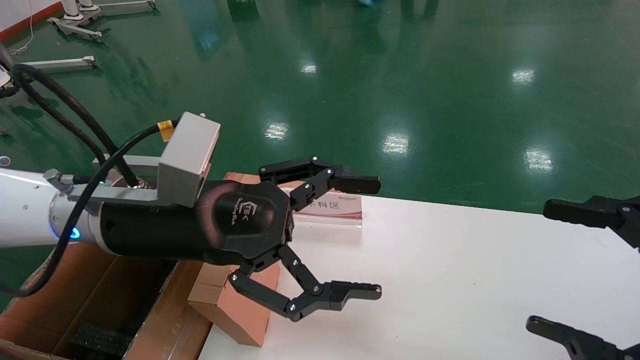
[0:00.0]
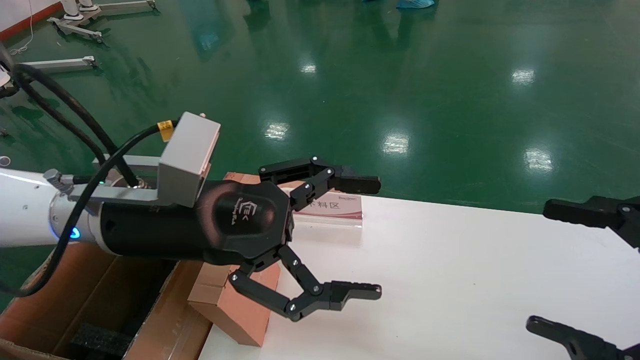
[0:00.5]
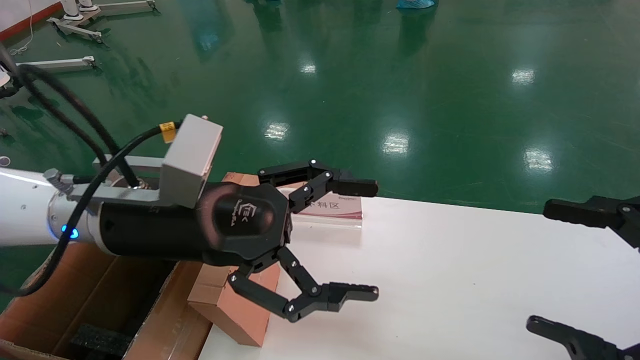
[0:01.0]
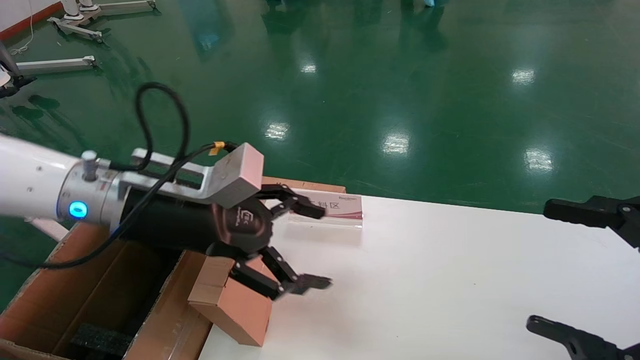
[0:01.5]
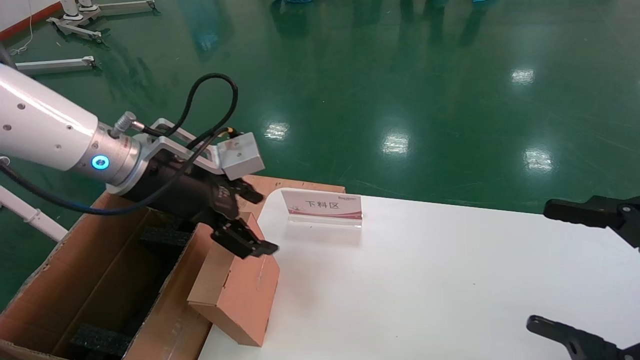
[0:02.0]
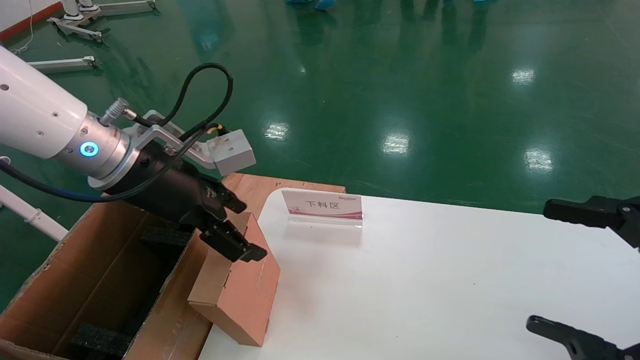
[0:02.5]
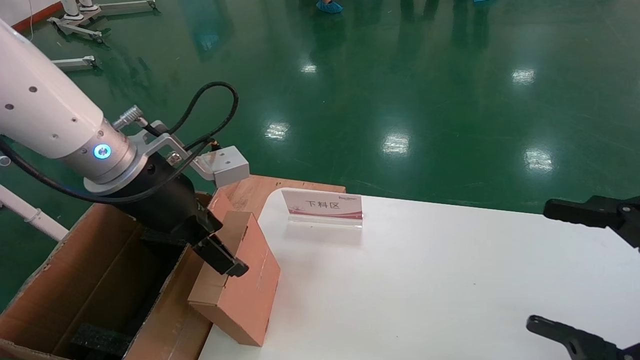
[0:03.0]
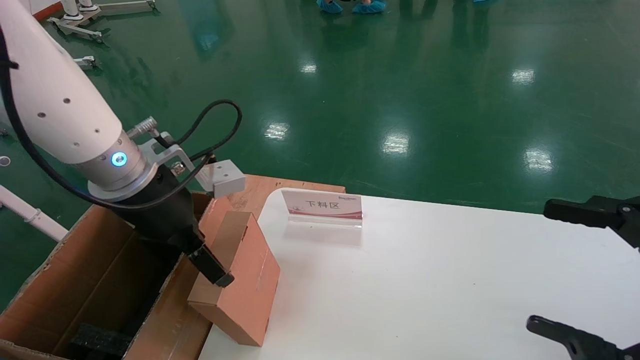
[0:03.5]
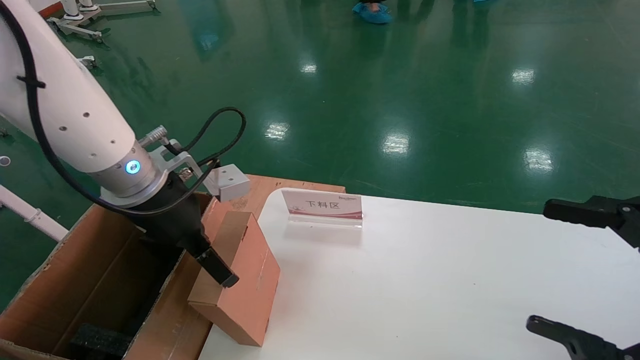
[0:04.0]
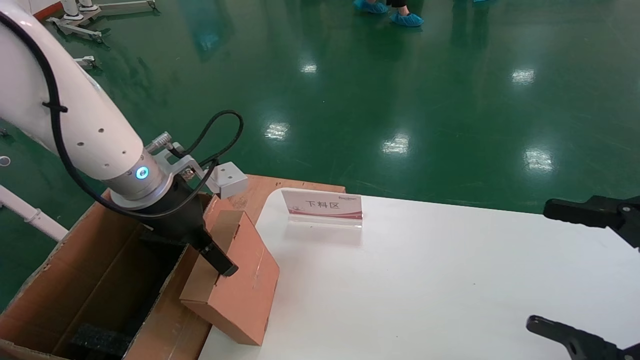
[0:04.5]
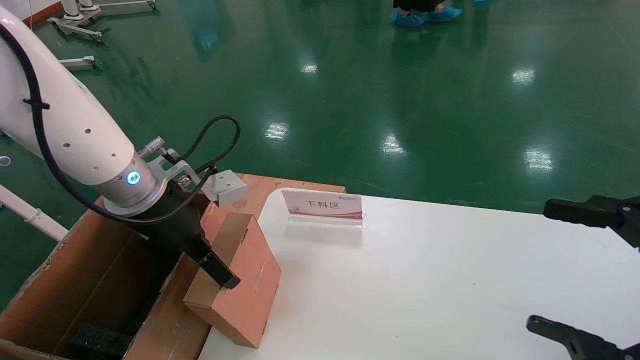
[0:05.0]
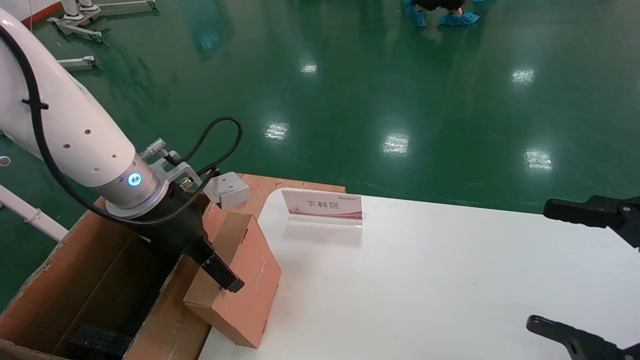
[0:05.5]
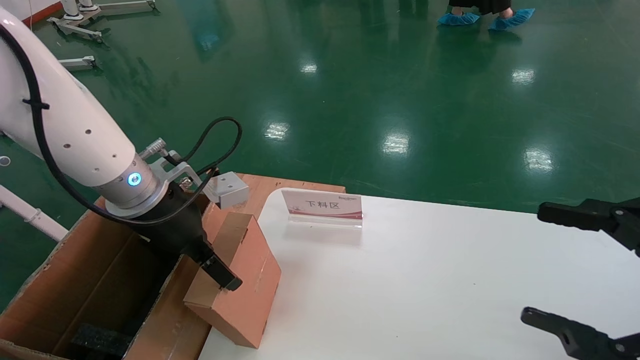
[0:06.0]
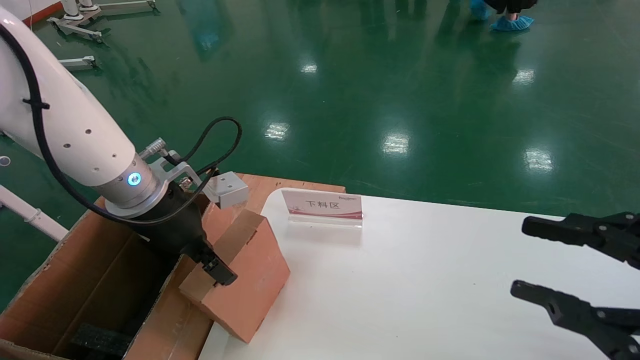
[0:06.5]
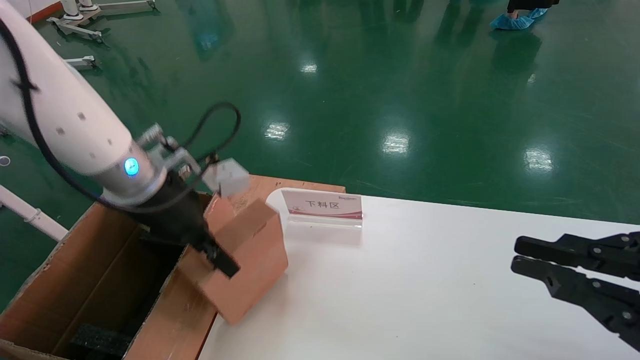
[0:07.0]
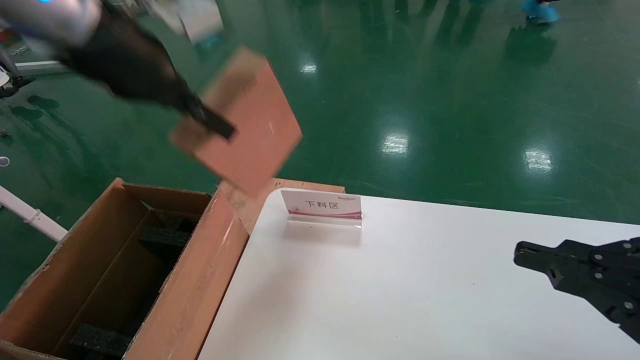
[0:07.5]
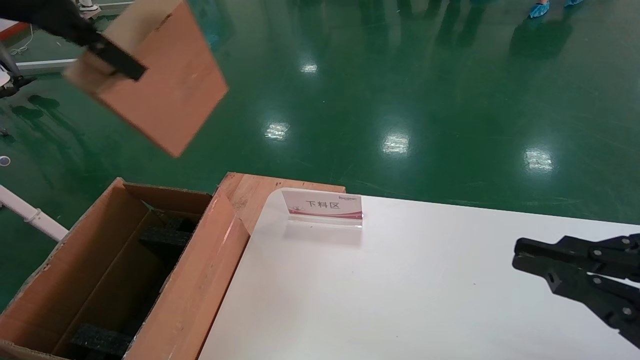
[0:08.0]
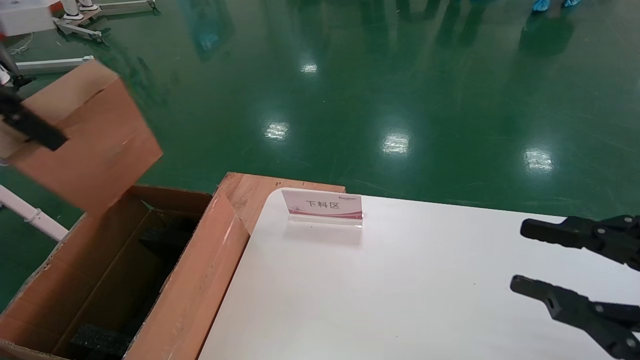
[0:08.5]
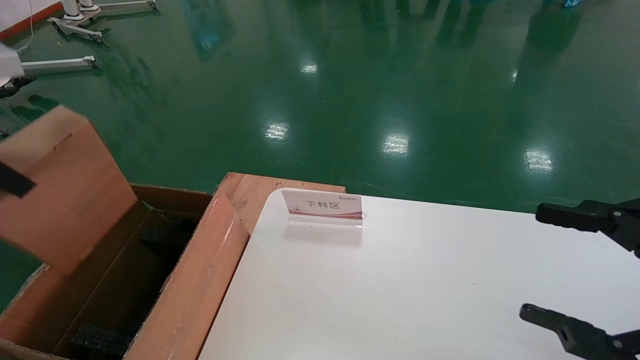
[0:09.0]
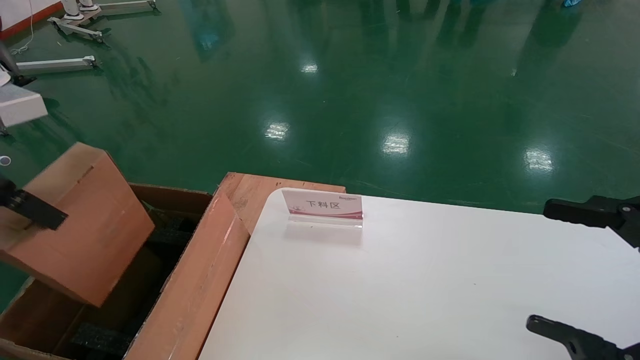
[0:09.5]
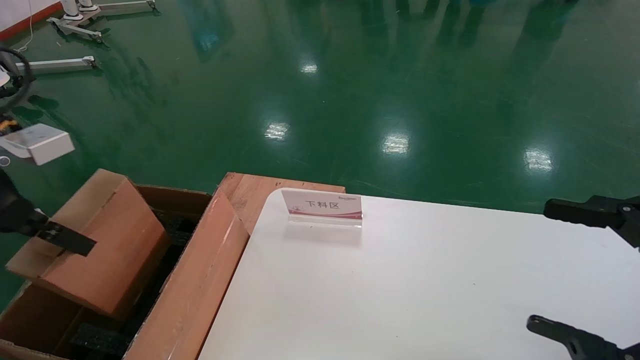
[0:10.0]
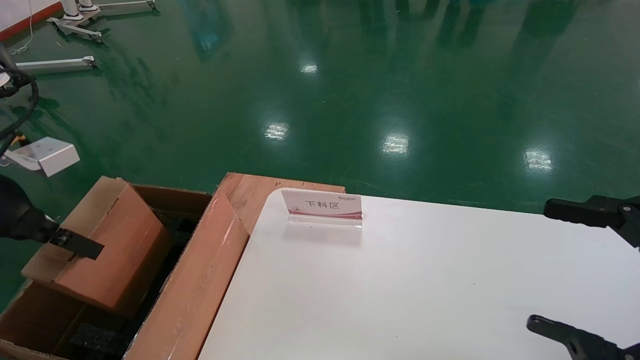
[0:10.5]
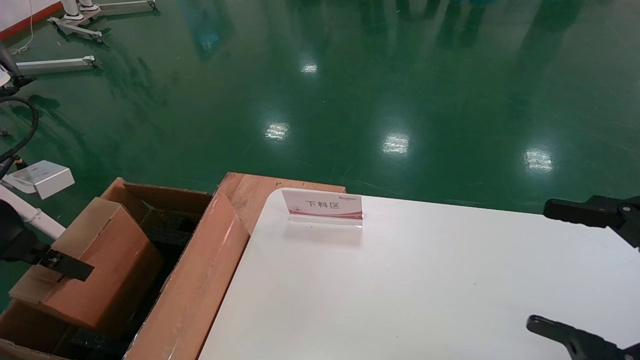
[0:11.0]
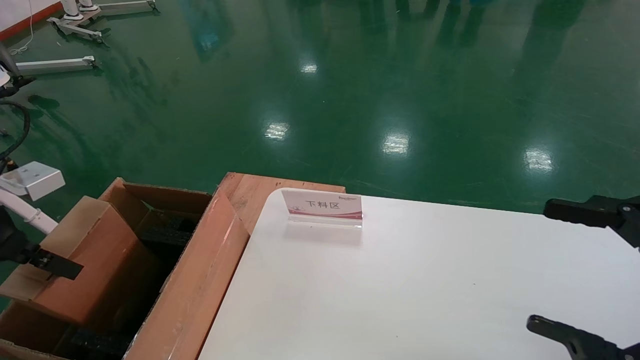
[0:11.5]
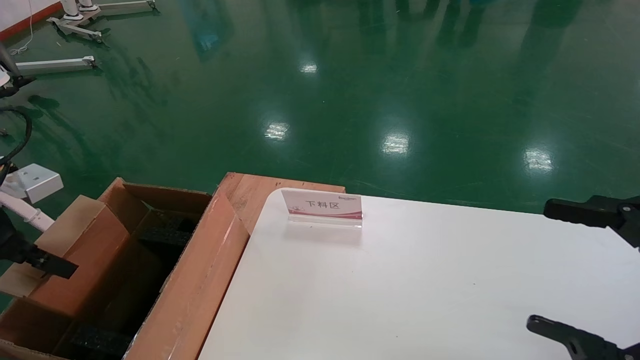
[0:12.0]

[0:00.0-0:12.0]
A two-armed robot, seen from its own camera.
Task of the whole recording: pick up the small cardboard box and load it into the large cardboard box.
Step, 0:01.0 to 0:06.5: Pick up the mouse and power cord box.
0:00.0 to 0:02.0: The left gripper heads forward, covering roughly 5 cm.
0:04.0 to 0:06.0: The grippers move only a little.
0:06.0 to 0:08.0: The left gripper moves upward, approximately 25 cm, and closes up. The right gripper closes its fingers.
0:08.0 to 0:10.0: The right gripper opens; the left gripper moves downward and to the left, roughly 20 cm.
0:10.0 to 0:12.0: The left gripper travels downward and to the left by some 10 cm.

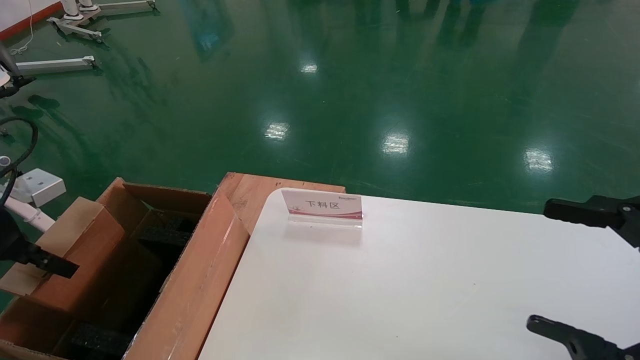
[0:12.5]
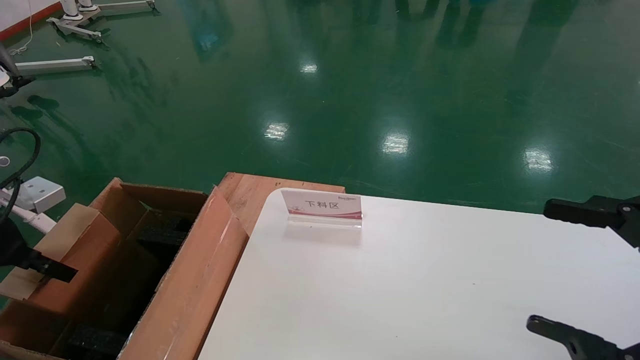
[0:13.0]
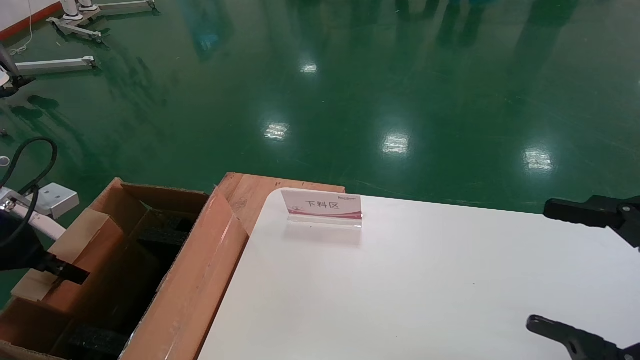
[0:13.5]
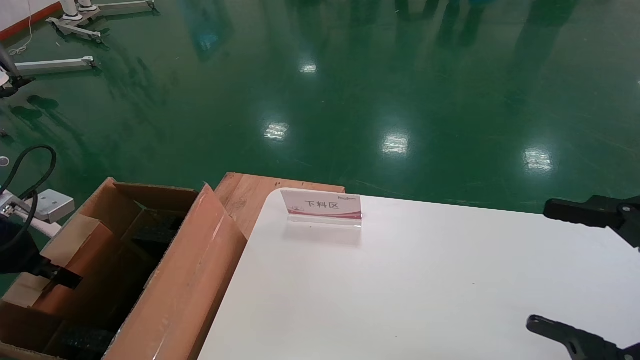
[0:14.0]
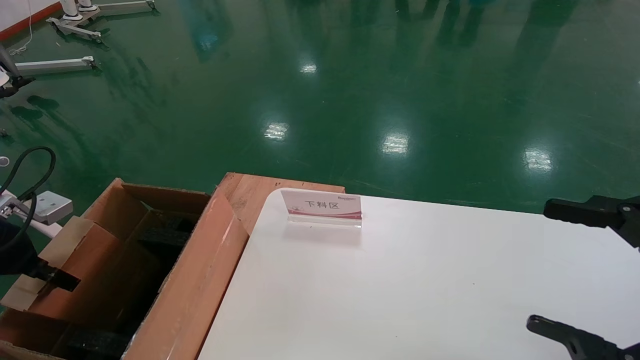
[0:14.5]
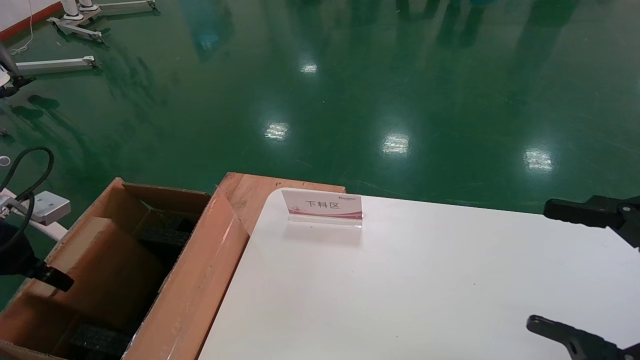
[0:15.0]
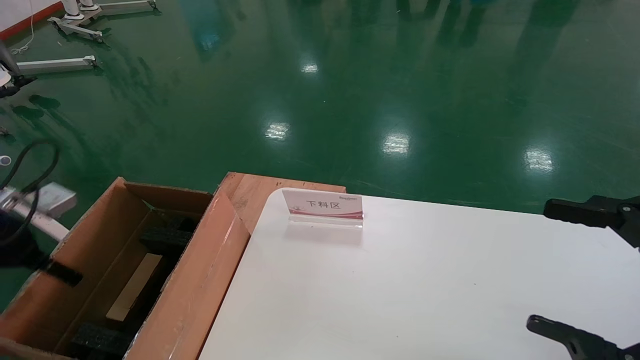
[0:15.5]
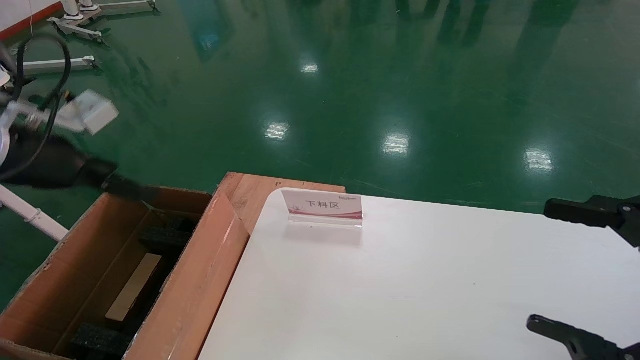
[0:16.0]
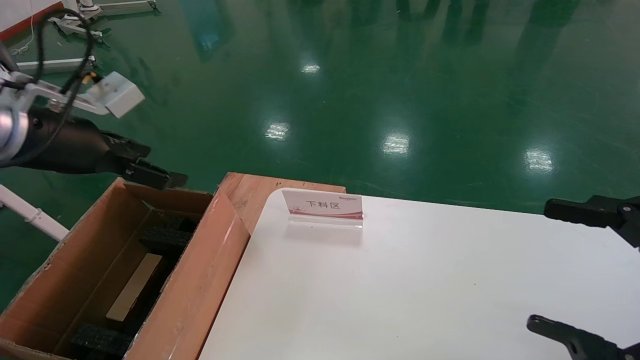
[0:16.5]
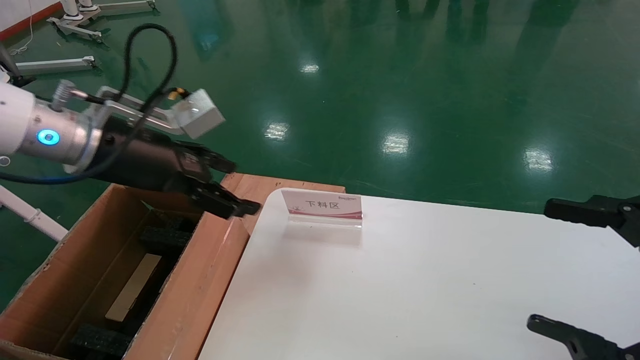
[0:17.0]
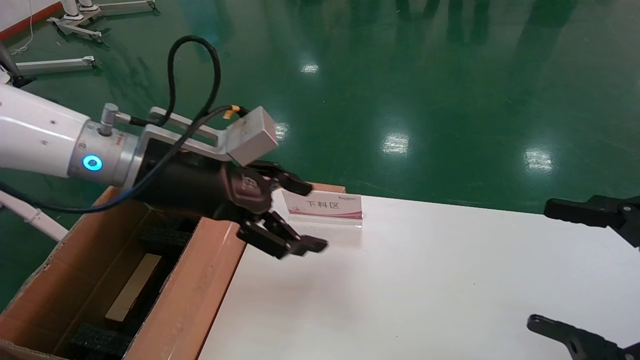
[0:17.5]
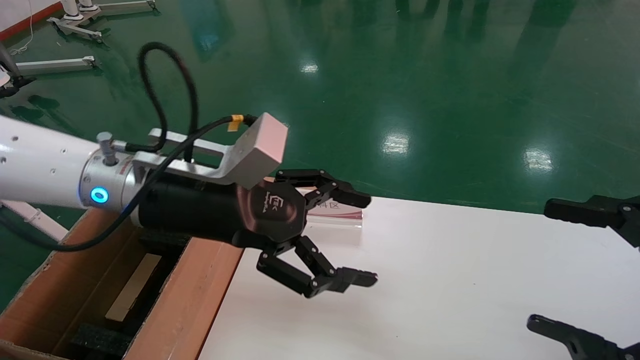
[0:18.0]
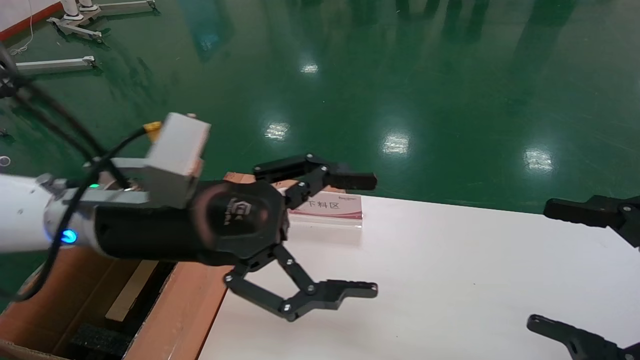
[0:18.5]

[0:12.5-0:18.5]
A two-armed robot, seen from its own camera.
Task of the whole recording: pick up the small cardboard box and load it into the large cardboard box.
Step, 0:12.5 to 0:15.0: Place the mouse and power cord box into the case.
0:12.5 to 0:14.5: The left gripper moves some 5 cm.
0:14.5 to 0:16.5: The left gripper shifts some 20 cm upward and to the right, and opens up.
0:16.5 to 0:18.5: The left gripper heads to the right, covering some 15 cm.
